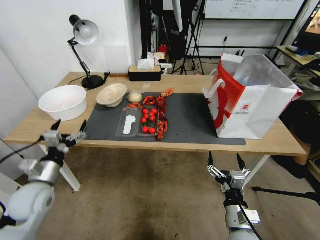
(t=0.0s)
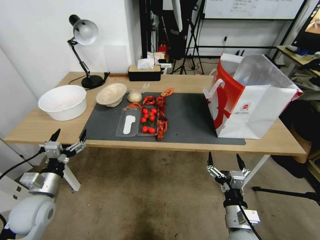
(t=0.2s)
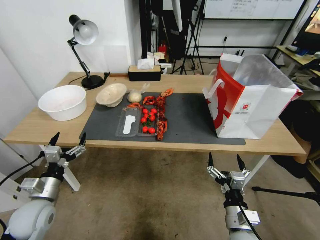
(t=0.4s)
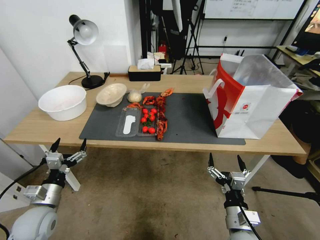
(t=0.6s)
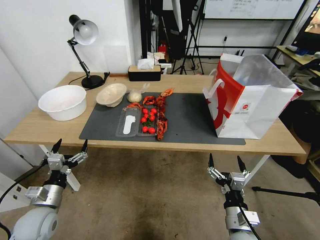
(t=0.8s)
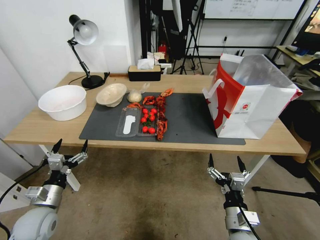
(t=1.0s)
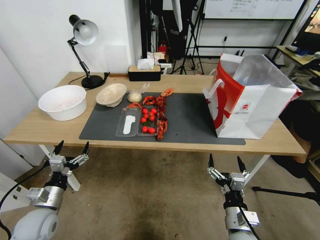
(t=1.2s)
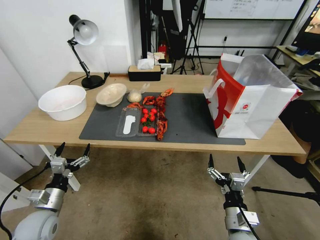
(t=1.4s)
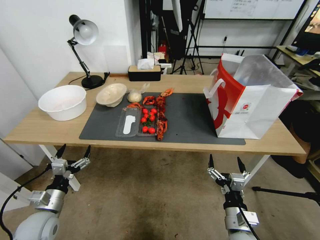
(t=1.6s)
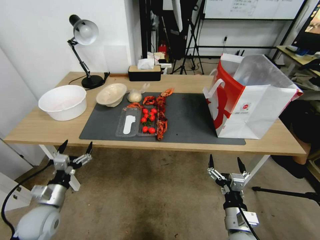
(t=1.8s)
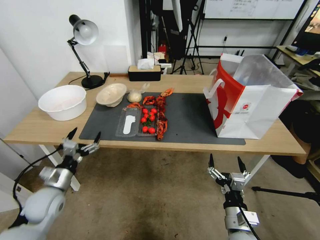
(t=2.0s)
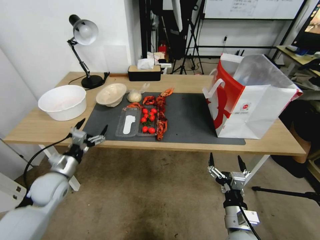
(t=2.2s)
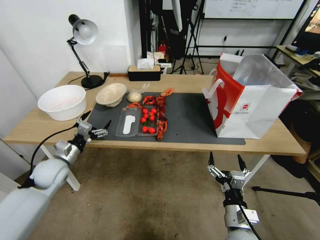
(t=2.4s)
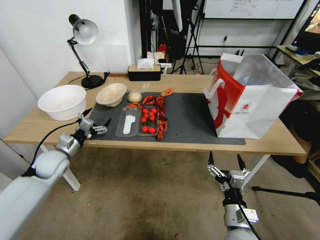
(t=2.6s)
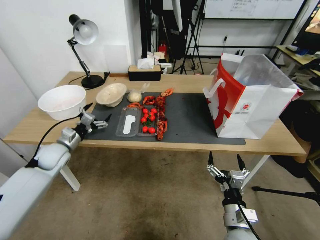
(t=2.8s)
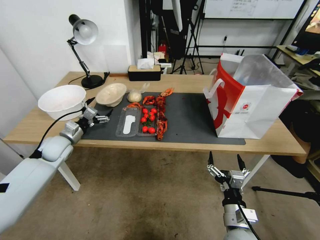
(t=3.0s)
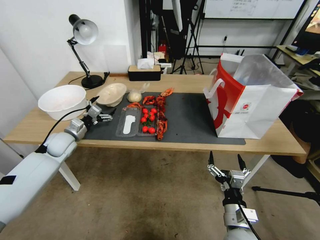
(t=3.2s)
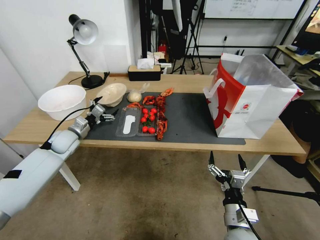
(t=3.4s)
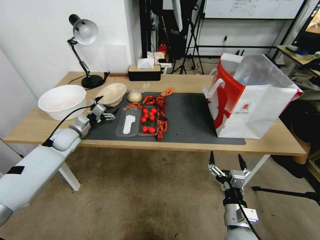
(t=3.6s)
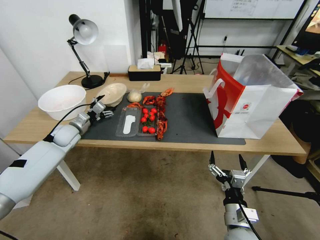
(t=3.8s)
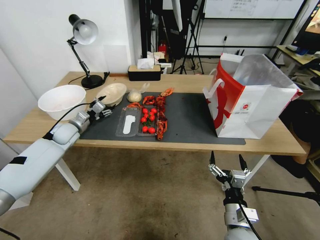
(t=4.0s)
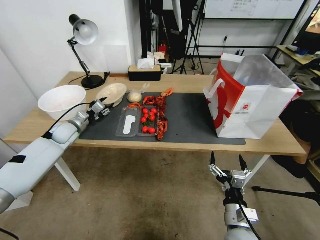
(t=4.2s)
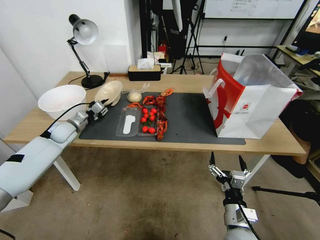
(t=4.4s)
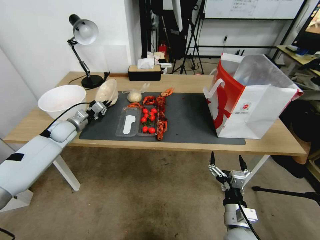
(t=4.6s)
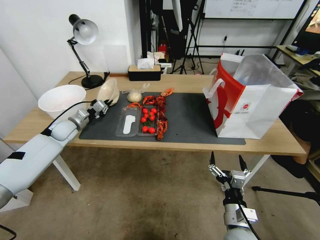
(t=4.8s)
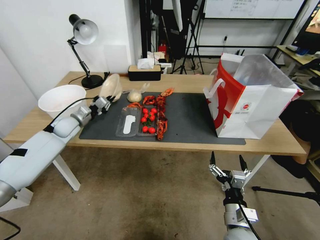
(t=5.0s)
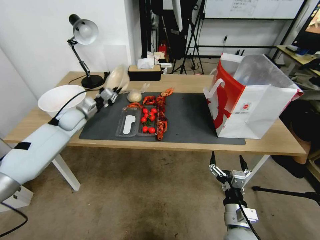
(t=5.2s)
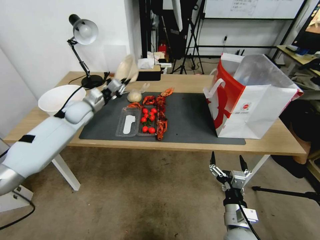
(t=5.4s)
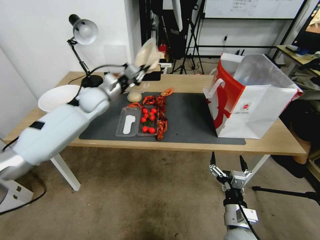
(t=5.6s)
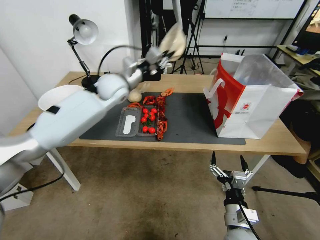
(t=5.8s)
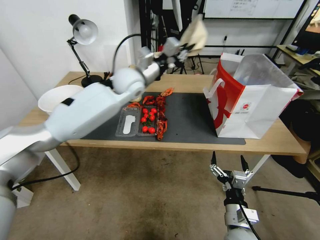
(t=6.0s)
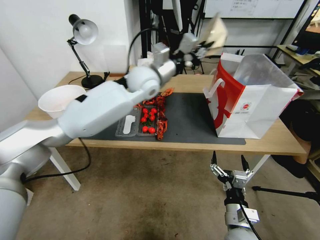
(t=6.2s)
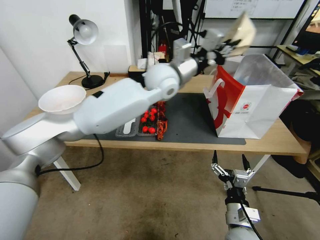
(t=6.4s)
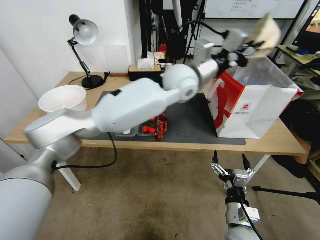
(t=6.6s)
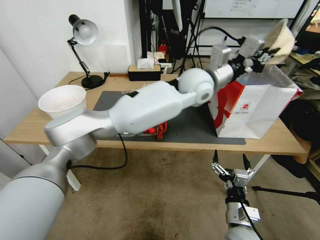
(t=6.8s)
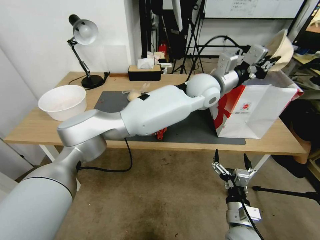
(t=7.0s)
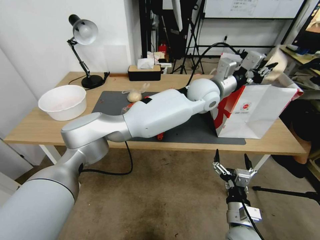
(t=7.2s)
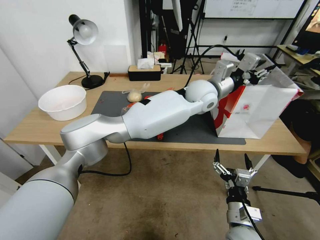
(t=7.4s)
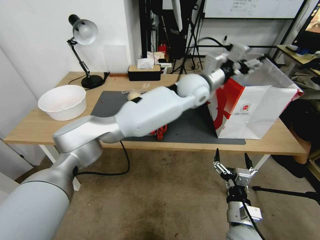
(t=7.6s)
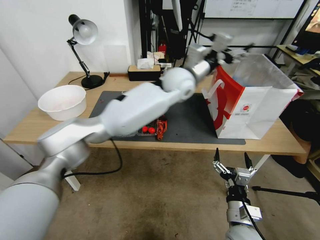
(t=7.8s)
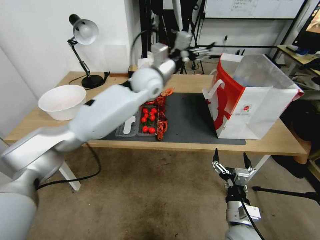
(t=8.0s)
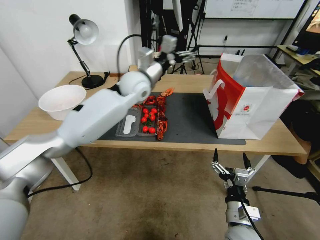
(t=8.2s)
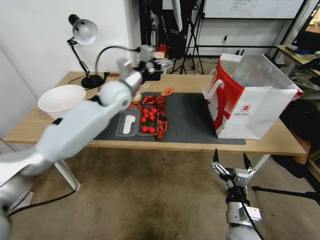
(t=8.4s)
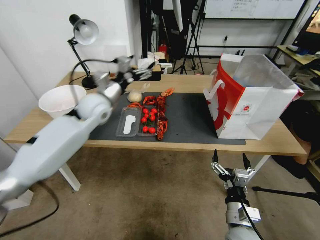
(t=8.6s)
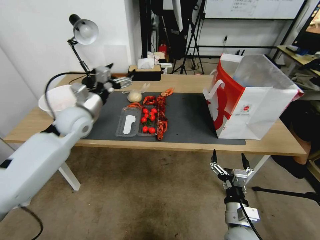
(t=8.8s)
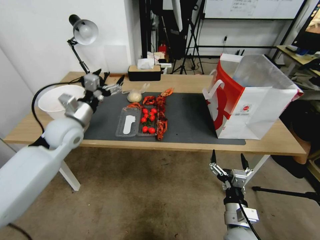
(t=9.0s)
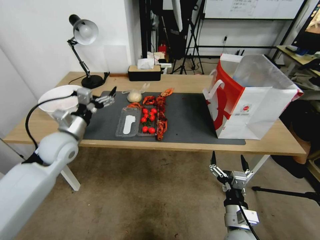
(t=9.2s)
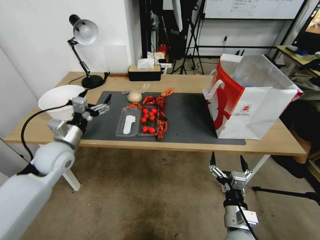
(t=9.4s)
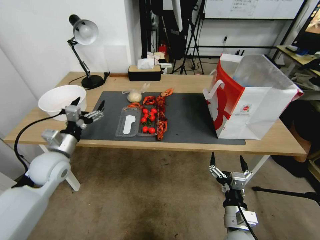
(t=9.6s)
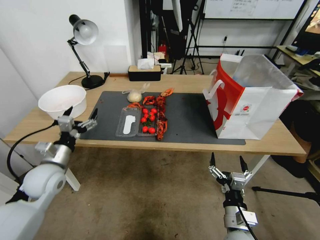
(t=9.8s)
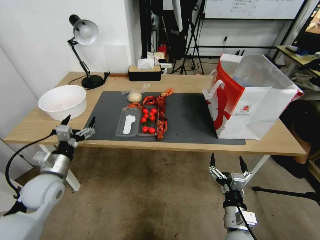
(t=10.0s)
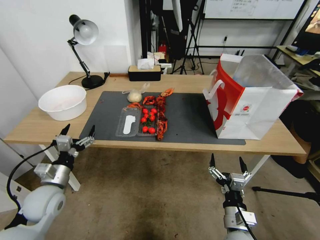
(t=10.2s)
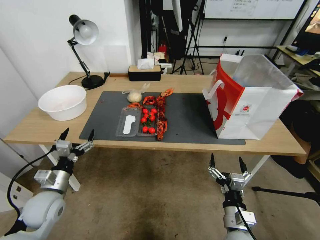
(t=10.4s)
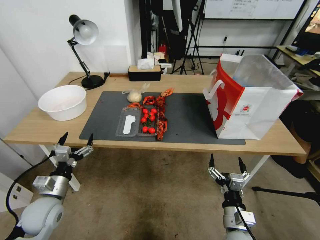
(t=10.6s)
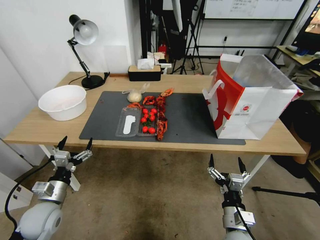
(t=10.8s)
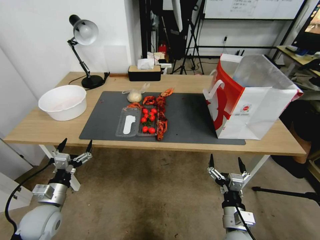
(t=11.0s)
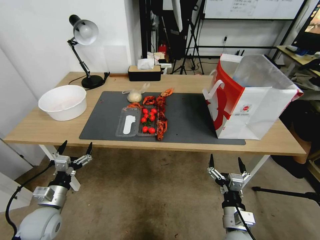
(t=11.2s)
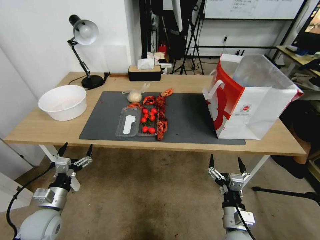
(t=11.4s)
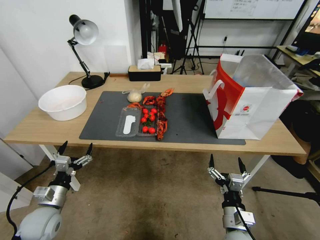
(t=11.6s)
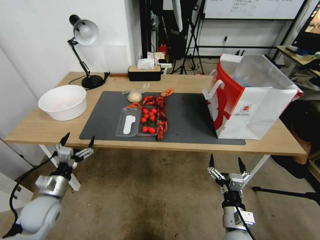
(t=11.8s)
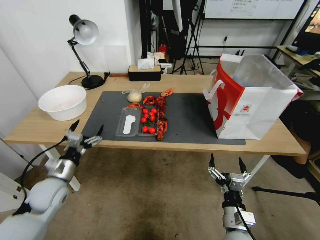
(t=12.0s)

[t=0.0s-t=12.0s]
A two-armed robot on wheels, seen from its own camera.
t=0.0s to t=1.6s: The left gripper moves downward, about 10 cm.
t=1.6s to t=3.0s: The left gripper goes roughly 25 cm forward.
t=3.0s to t=4.4s: The left gripper travels forward by roughly 5 cm, and closes.
t=4.4s to t=6.0s: The left gripper shifts approximately 35 cm to the right and upward.
t=6.0s to t=7.6s: The left gripper goes approximately 20 cm to the right, and opens up.
t=7.6s to t=9.0s: The left gripper goes roughly 35 cm to the left, and opens.
t=9.0s to t=10.4s: The left gripper goes some 30 cm backward, downward and to the left.
t=10.4s to t=12.0s: The grippers move only a little.

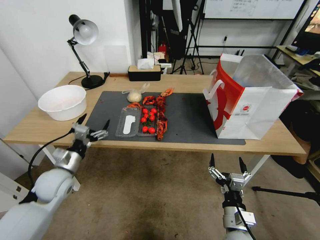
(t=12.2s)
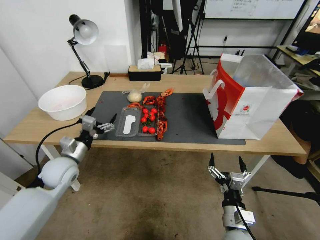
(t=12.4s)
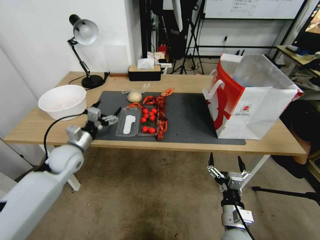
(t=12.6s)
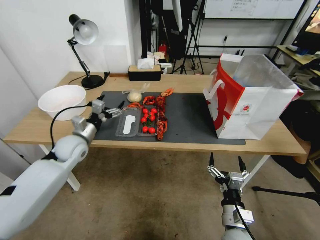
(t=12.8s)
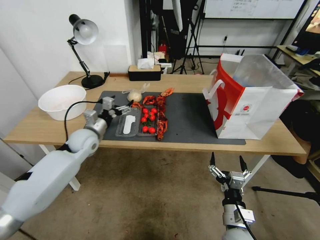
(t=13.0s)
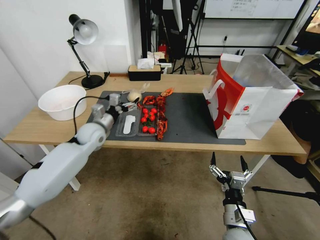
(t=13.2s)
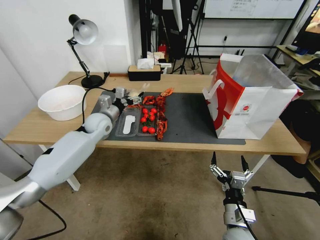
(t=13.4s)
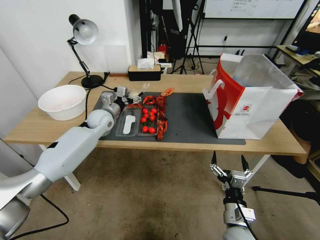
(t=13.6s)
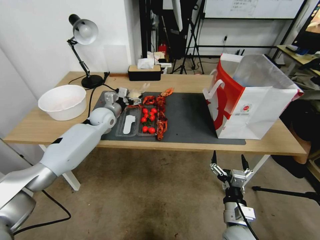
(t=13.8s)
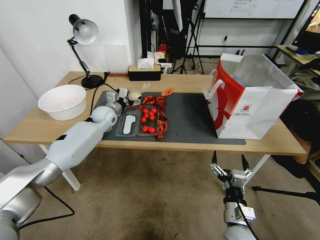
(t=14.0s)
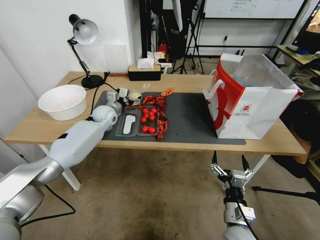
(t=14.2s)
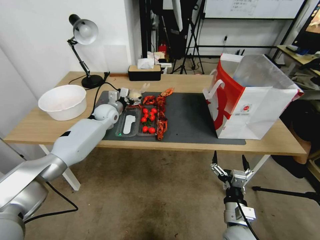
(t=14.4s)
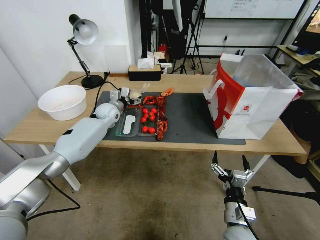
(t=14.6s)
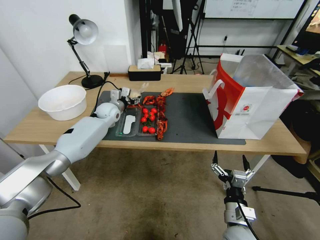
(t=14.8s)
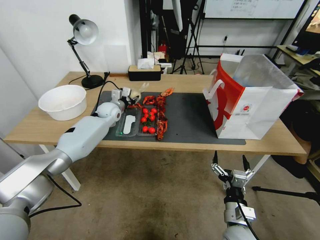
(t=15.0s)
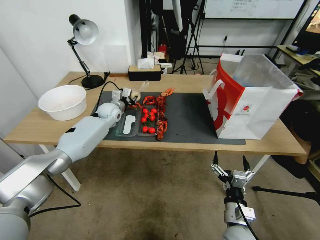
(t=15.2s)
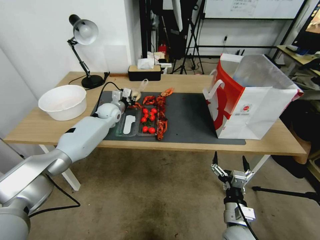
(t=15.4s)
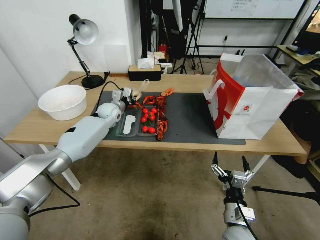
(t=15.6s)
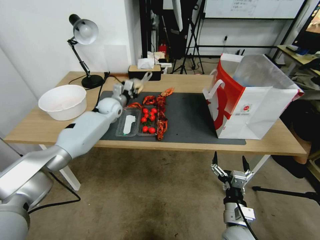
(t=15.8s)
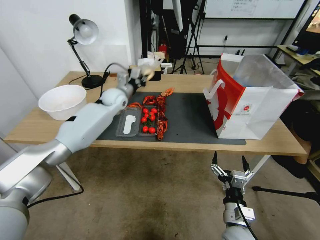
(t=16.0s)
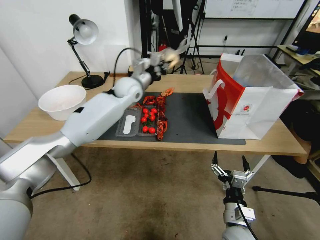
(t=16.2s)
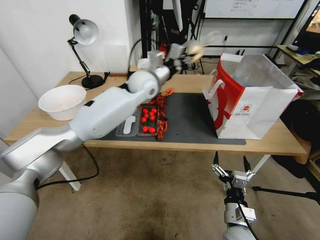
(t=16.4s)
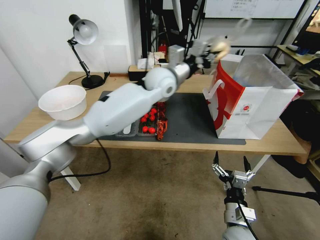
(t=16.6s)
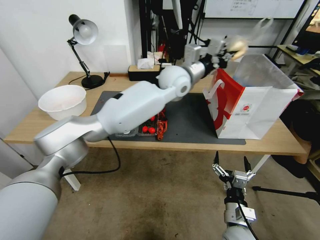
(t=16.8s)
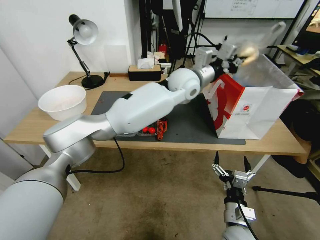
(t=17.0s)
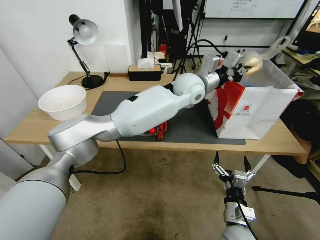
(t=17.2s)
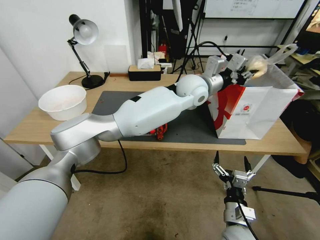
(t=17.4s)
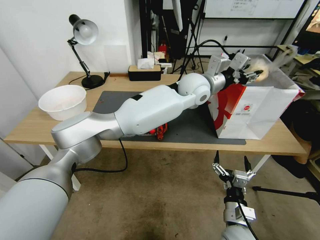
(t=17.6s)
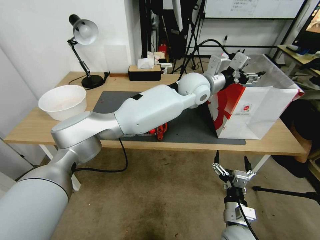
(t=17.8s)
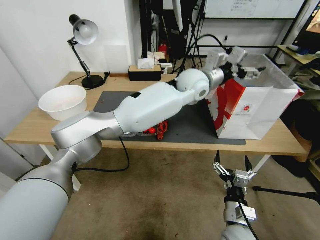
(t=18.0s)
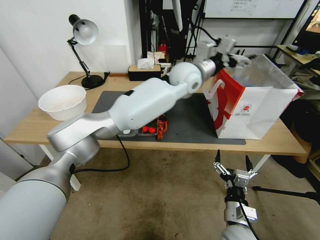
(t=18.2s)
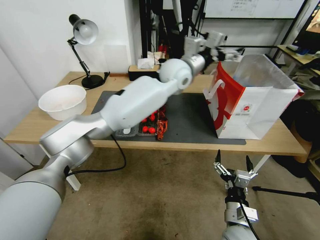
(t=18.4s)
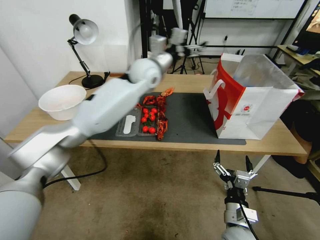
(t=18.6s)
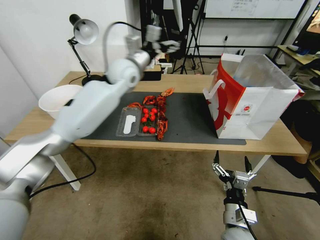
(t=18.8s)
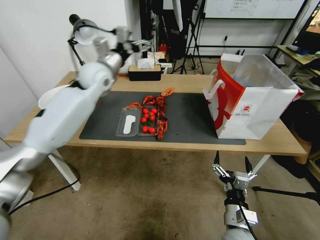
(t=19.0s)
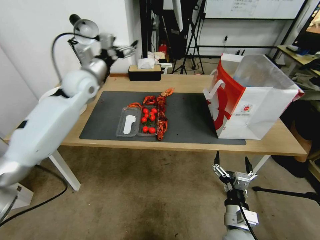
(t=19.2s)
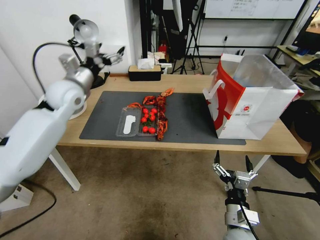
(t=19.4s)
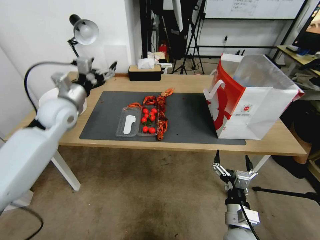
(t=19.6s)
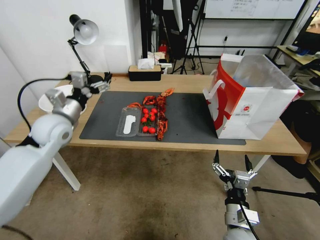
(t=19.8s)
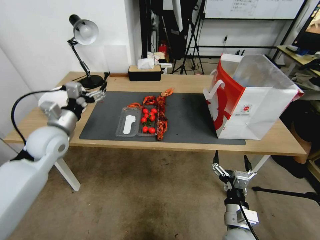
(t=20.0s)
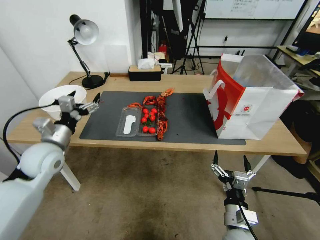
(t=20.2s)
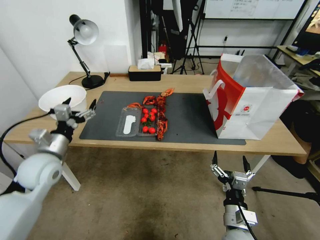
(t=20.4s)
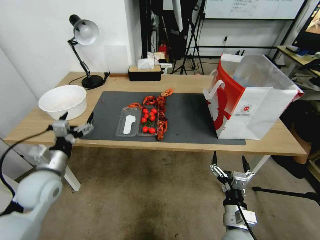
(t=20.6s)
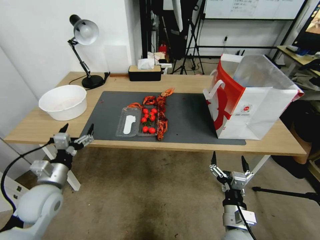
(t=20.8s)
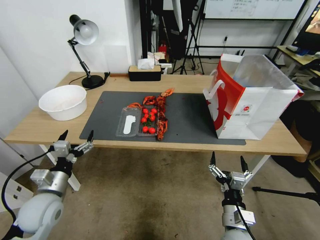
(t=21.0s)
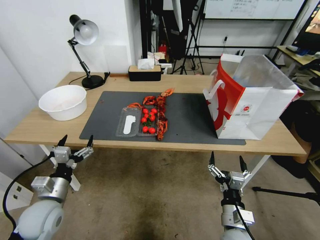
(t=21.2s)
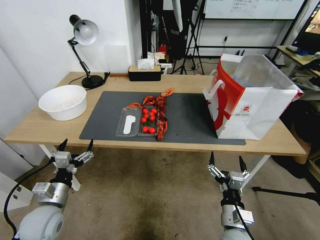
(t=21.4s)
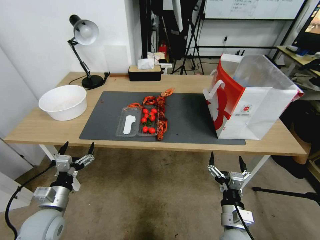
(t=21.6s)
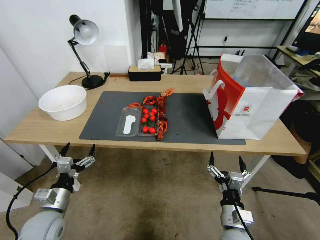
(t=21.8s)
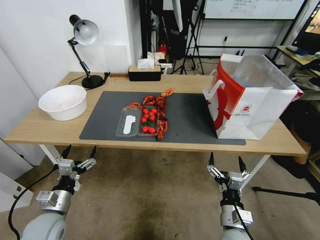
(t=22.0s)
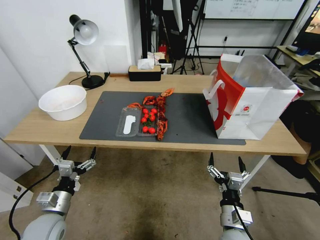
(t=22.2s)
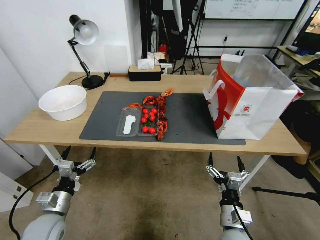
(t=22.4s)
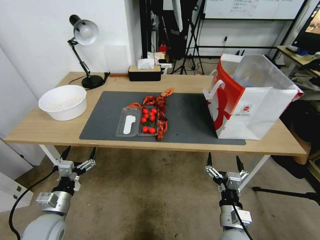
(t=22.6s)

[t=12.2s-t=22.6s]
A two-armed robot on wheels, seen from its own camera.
t=12.2s to t=13.6s: The left gripper heads forward, covering approximately 25 cm.
t=13.6s to t=15.2s: The left gripper shifts about 5 cm forward, and closes its fingers.
t=15.2s to t=16.6s: The left gripper travels to the right and upward by some 30 cm.
t=16.6s to t=18.2s: The left gripper moves to the right, some 10 cm, and opens its fingers.
t=18.2s to t=19.6s: The left gripper moves to the left, roughly 40 cm.
t=19.6s to t=21.2s: The left gripper is displaced backward and downward by about 30 cm.
t=21.2s to t=22.6s: The left gripper moves about 5 cm.
